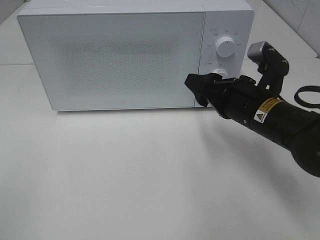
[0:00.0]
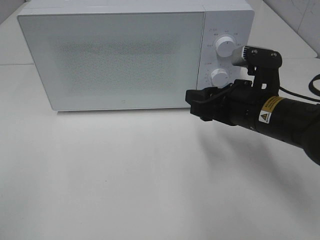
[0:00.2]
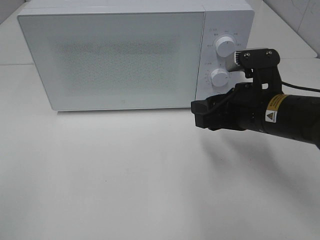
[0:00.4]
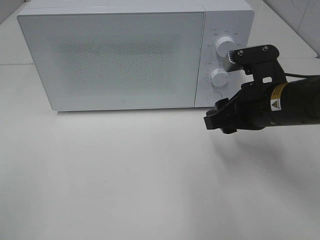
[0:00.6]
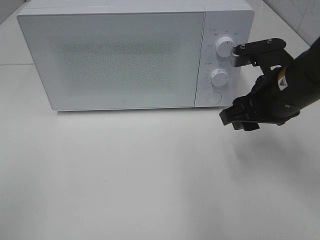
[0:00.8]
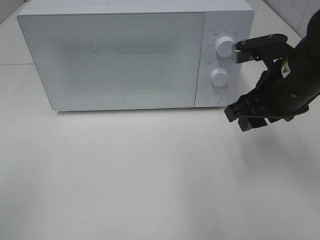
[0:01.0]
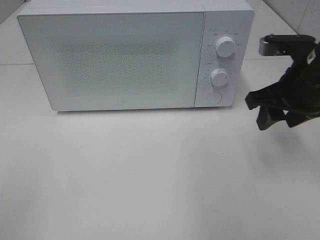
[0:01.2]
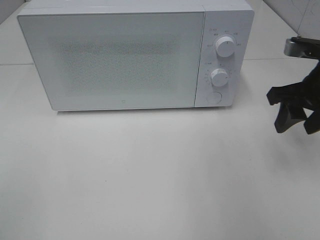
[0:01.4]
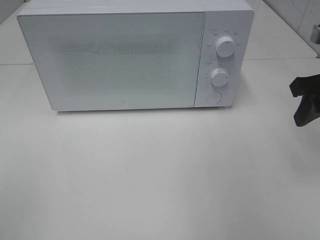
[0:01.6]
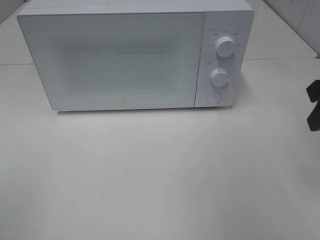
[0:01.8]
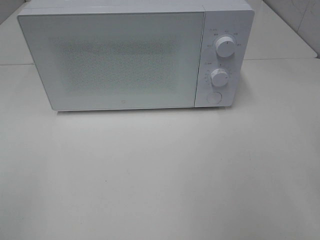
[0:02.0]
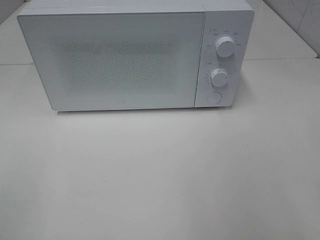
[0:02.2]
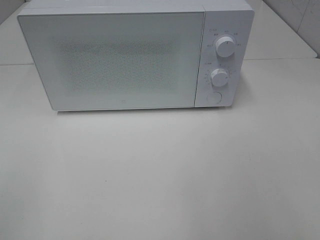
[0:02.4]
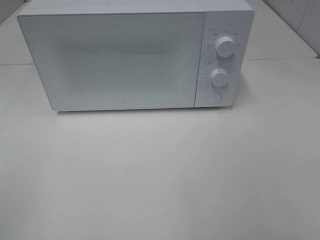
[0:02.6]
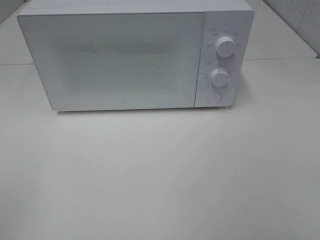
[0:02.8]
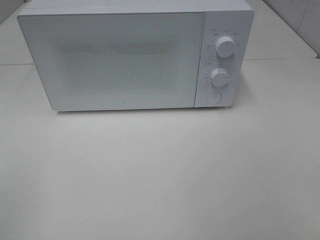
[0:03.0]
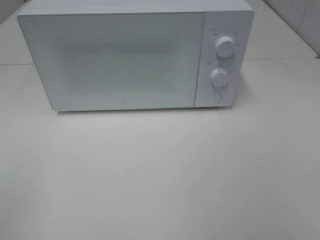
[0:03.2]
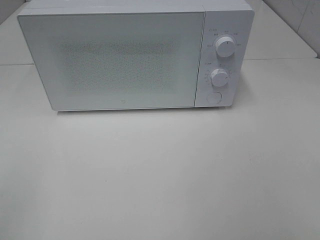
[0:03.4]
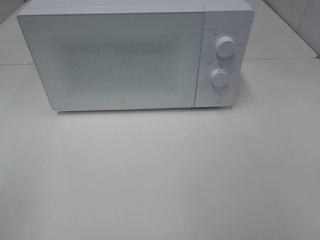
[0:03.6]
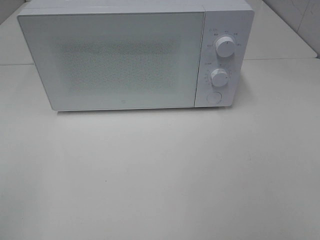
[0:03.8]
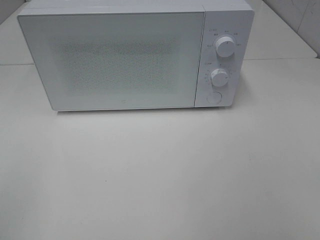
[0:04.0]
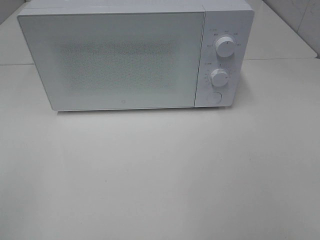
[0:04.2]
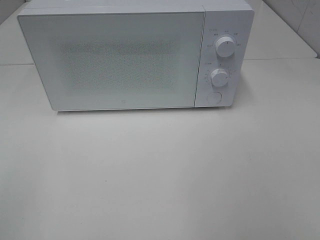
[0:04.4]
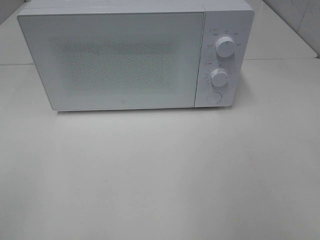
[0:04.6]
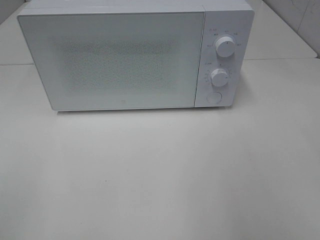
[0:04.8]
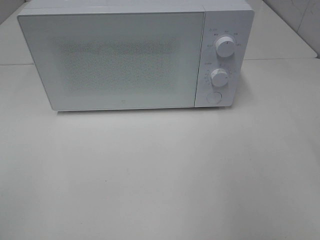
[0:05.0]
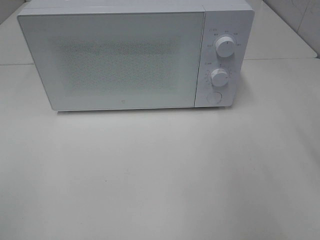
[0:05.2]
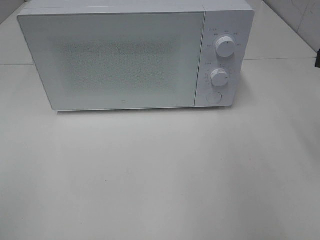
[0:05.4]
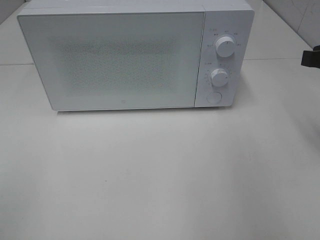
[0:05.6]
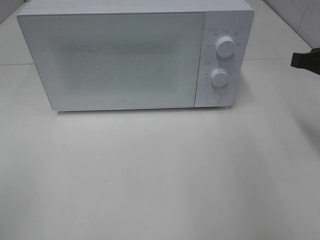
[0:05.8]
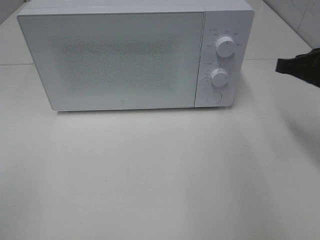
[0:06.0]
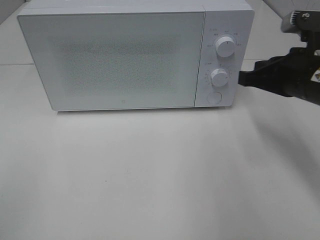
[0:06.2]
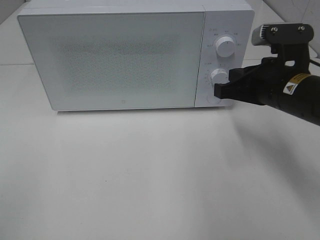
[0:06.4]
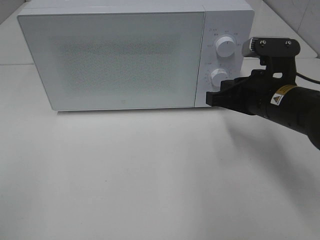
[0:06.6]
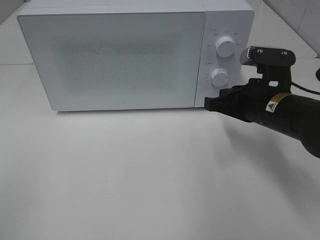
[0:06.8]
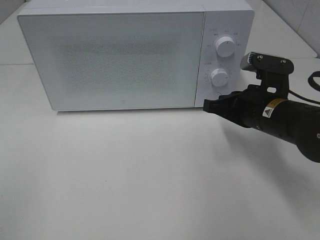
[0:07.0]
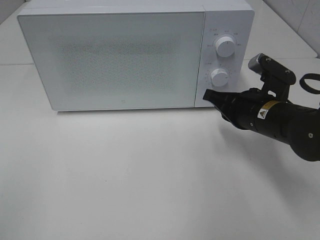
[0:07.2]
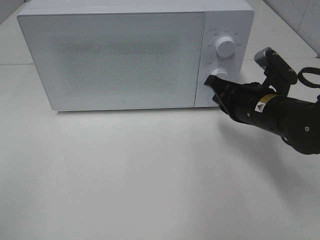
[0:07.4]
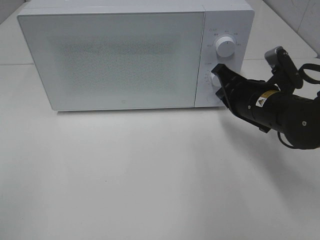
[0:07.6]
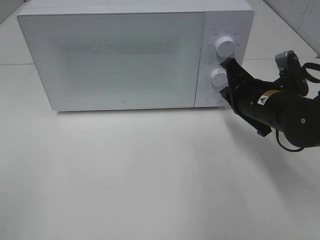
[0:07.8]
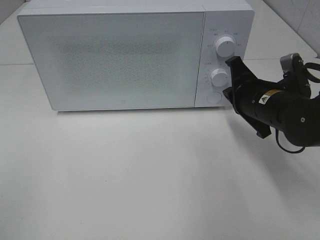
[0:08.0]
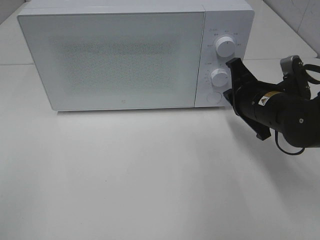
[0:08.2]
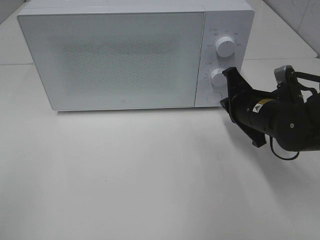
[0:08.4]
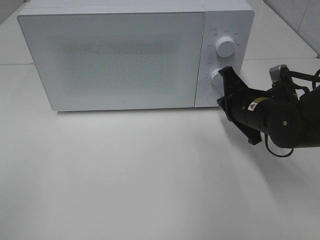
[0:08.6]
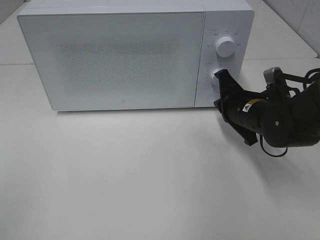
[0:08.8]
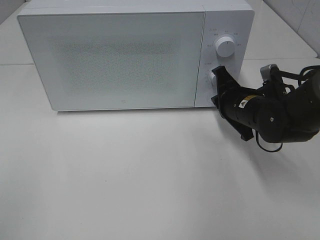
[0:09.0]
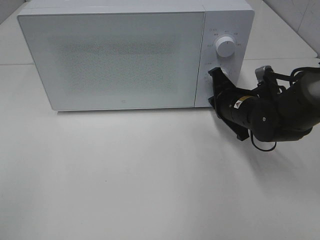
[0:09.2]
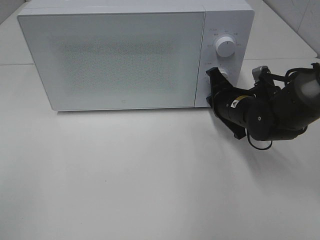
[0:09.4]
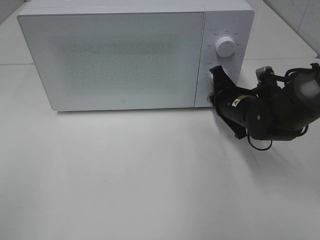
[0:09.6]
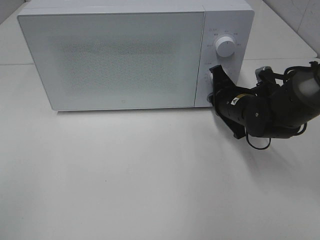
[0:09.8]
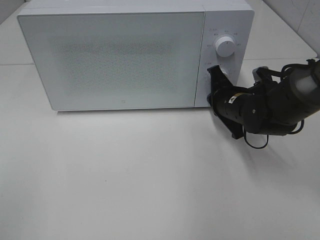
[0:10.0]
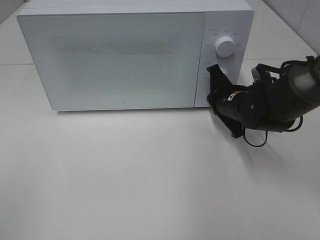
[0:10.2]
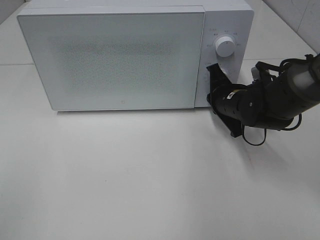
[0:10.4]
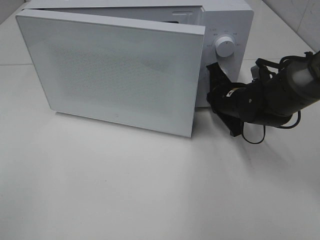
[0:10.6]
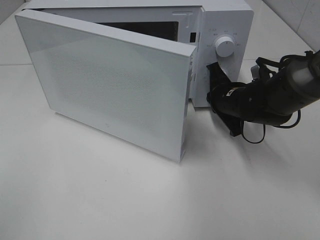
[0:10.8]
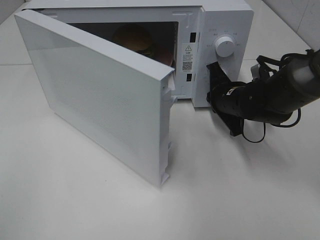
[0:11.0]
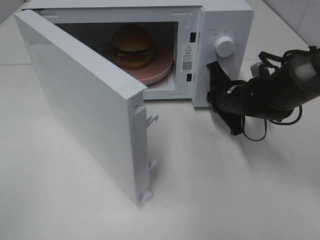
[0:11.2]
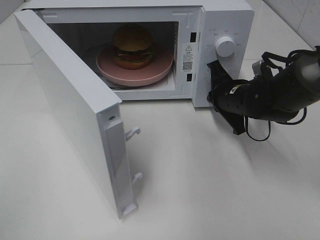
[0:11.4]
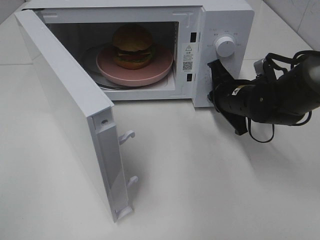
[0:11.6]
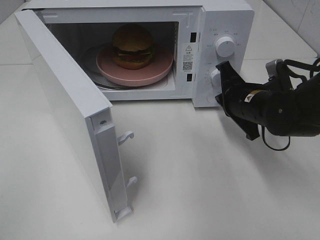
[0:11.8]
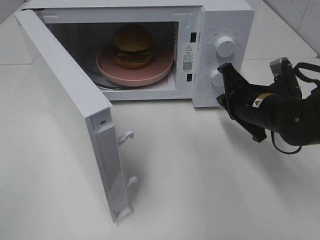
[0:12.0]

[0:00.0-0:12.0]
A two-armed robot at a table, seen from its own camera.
Task of the whole recording: Heat the burger.
Step, 0:00.0 to 0:11.6: Right hand: press the switch.
0:00.0 to 0:01.6: The right gripper moves to the right and upward, approximately 15 cm.
0:01.6 to 0:03.0: The right gripper moves backward, some 25 cm.
0:04.4 to 0:06.0: The right gripper moves forward, approximately 25 cm, and closes.
0:06.0 to 0:07.6: The right gripper shifts about 10 cm to the left and downward.
0:07.6 to 0:09.0: The right gripper moves roughly 5 cm.
0:09.0 to 0:10.4: The grippers stay close to where they were, moving slightly.
0:10.4 to 0:12.0: The right gripper moves backward, approximately 5 cm.

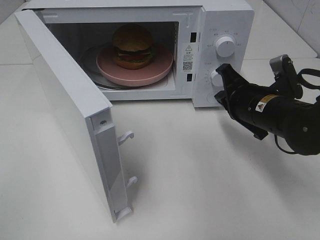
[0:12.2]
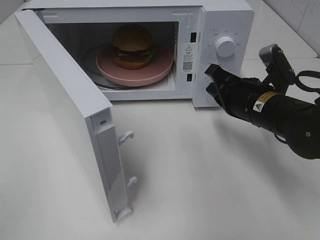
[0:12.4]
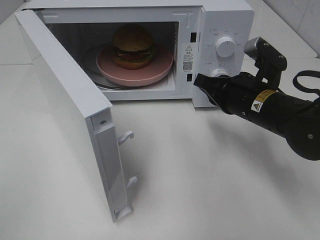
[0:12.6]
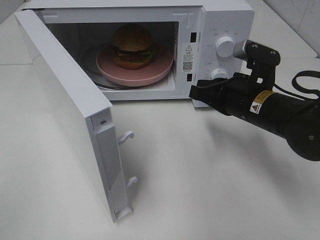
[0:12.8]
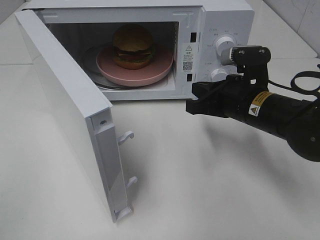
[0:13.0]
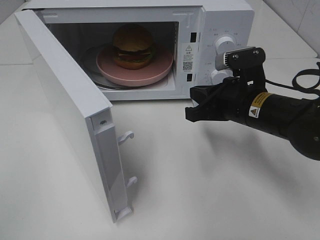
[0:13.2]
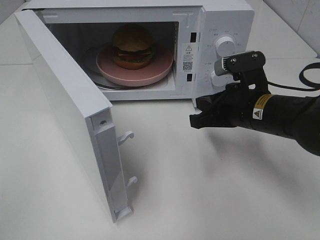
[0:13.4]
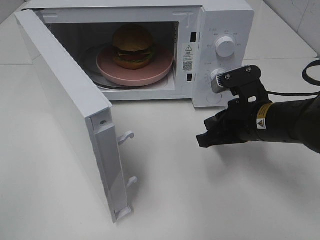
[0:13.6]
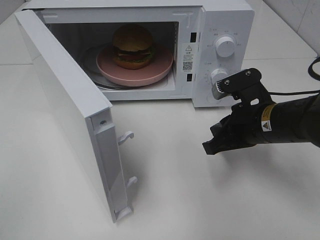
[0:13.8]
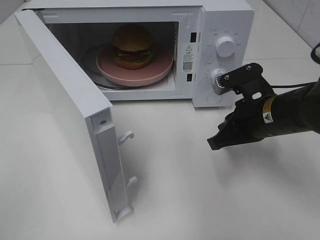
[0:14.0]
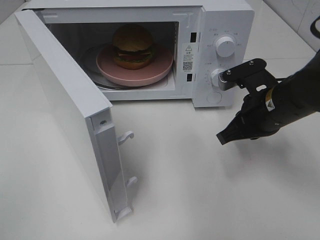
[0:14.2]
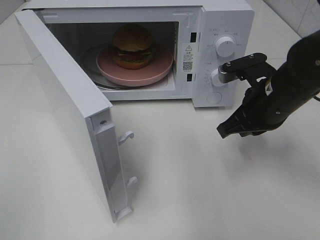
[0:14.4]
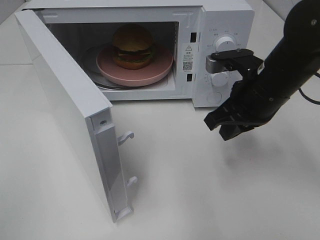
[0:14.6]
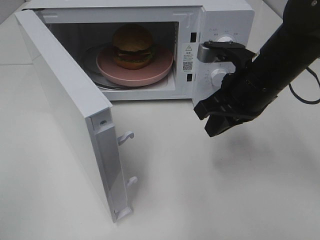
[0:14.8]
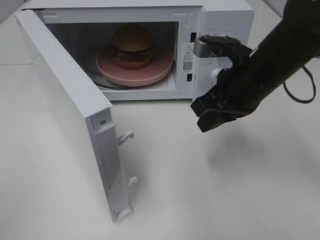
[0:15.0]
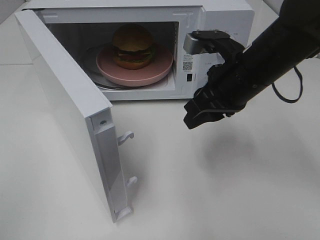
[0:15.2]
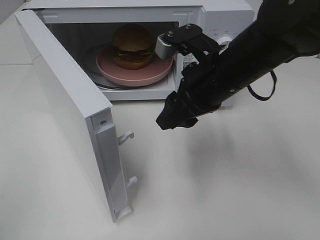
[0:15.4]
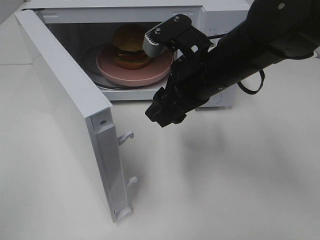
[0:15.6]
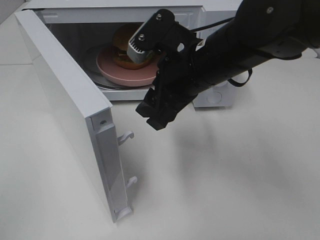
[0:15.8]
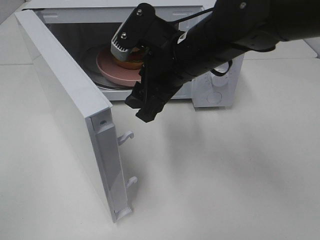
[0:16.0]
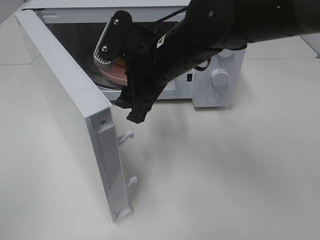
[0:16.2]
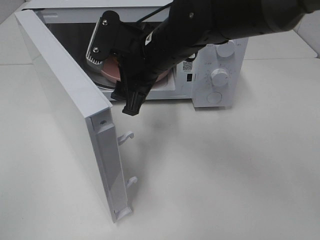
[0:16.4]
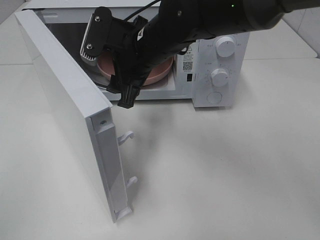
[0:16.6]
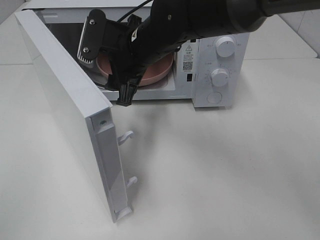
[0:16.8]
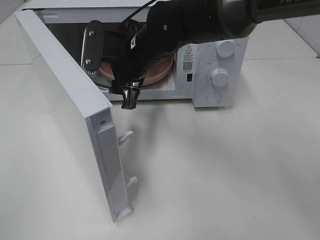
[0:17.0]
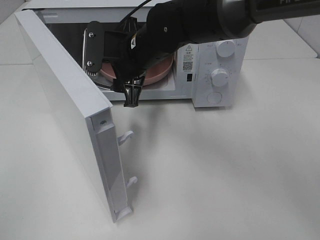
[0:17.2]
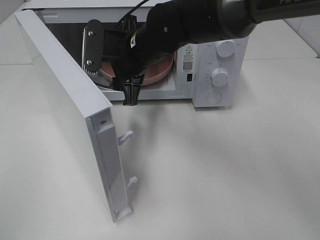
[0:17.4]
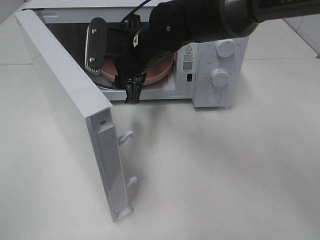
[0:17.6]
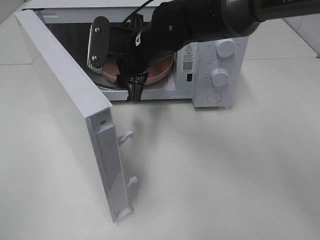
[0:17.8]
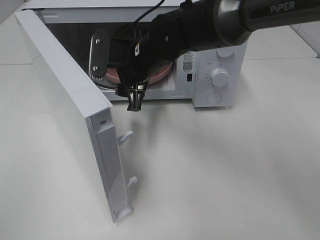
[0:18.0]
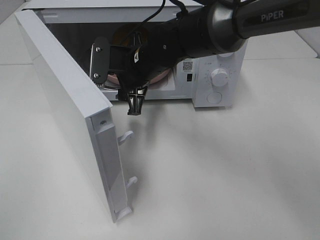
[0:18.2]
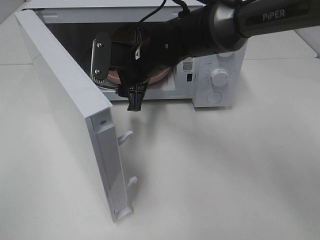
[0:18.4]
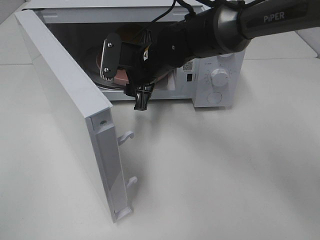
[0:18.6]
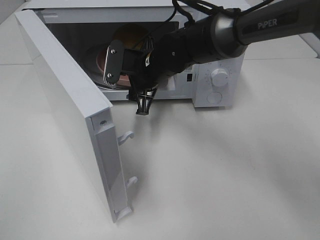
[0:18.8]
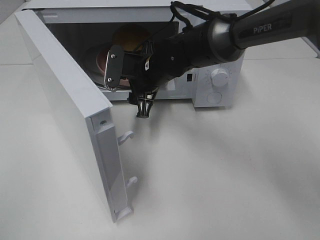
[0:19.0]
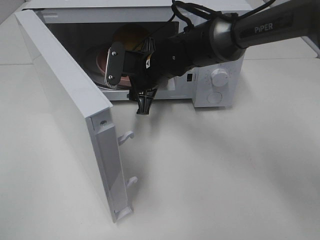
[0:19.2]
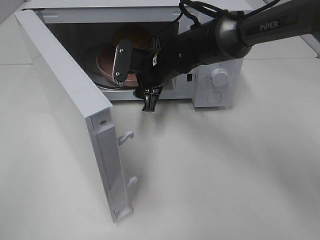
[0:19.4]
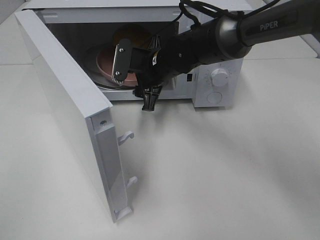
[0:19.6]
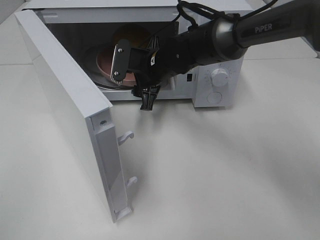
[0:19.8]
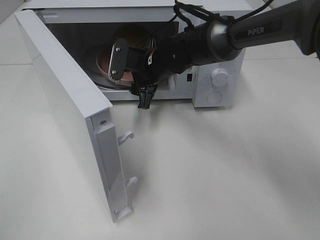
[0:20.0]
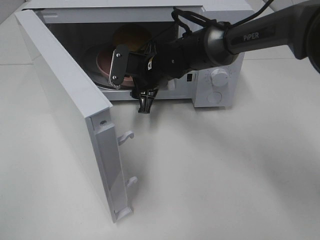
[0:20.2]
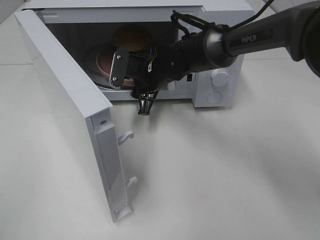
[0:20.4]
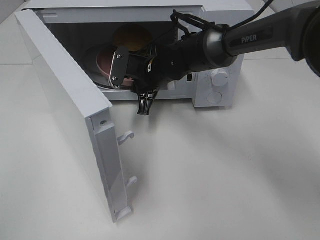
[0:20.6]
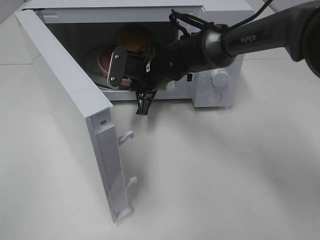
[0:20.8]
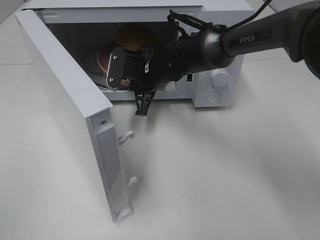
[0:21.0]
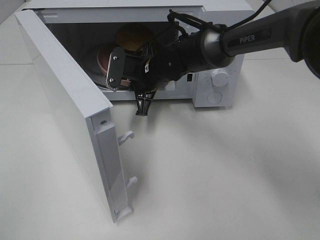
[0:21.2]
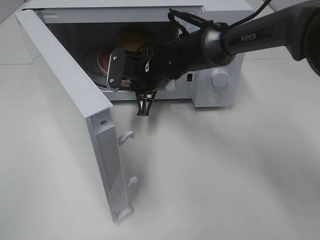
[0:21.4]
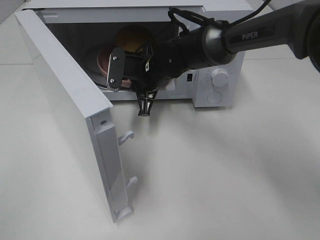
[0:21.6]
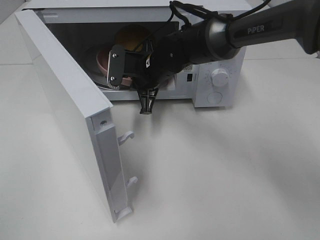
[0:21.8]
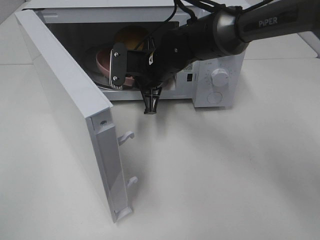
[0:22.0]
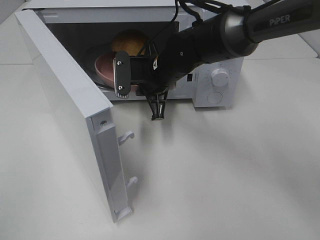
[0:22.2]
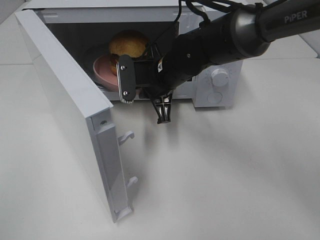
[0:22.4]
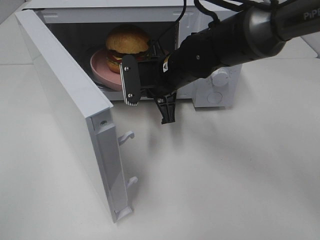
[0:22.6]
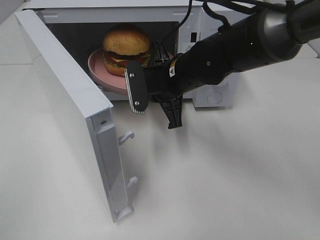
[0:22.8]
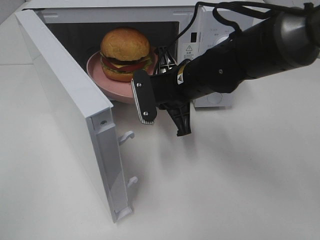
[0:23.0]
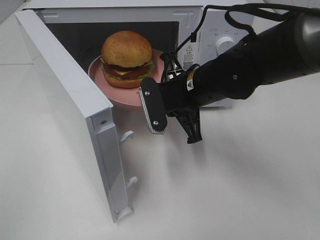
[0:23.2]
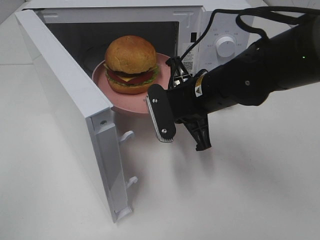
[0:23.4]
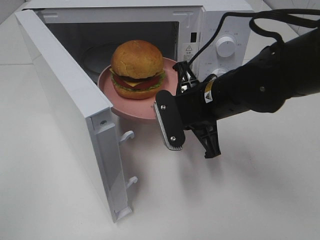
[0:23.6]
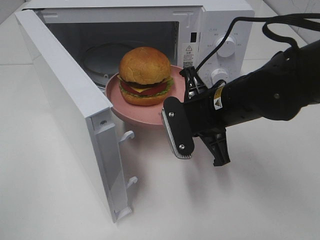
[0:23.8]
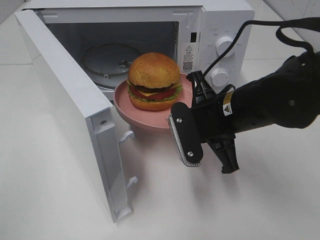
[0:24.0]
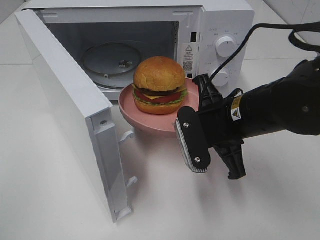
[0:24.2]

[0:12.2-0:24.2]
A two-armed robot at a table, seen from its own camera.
Task of the whole recording: Heat the burger.
Step, 0:12.2 to 0:21.0: Right hand: grab the plate with the hamburger.
0:13.8 to 0:15.2: The right gripper is displaced upward by roughly 10 cm.
0:15.2 to 0:16.6: The right gripper moves to the left, about 15 cm, and opens.
0:16.6 to 0:18.2: The right gripper ends up some 5 cm from where it was.
0:18.2 to 0:19.8: The right gripper shifts by roughly 5 cm.
0:19.8 to 0:21.2: The right gripper closes its fingers.
0:21.2 to 0:22.6: The right gripper heads backward, covering roughly 5 cm.
0:22.6 to 0:24.2: The right gripper shifts roughly 15 cm backward and to the right.
